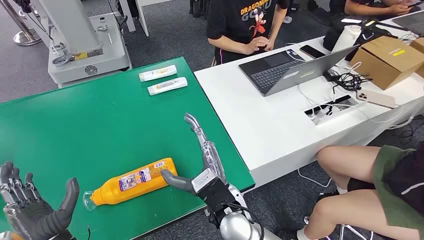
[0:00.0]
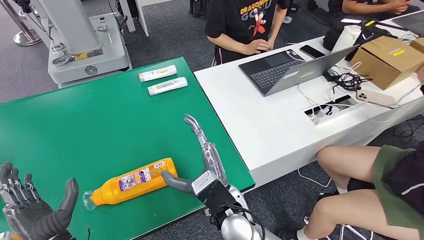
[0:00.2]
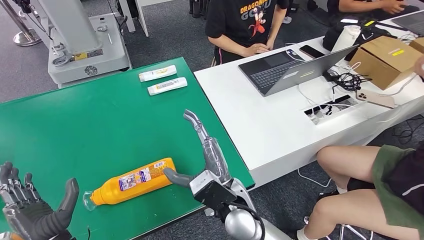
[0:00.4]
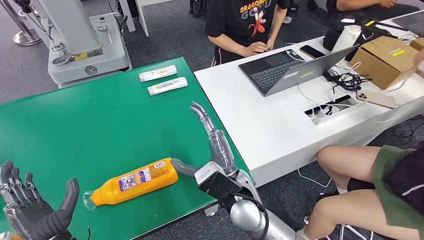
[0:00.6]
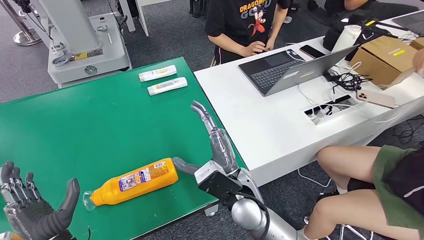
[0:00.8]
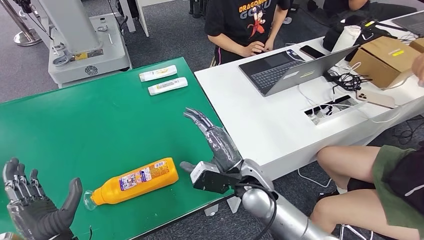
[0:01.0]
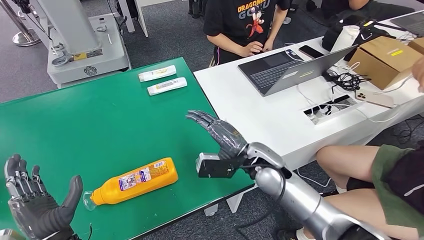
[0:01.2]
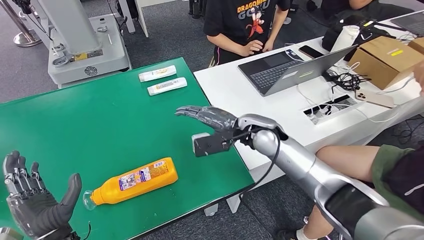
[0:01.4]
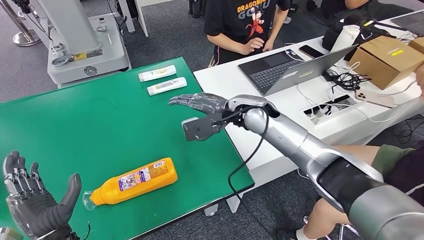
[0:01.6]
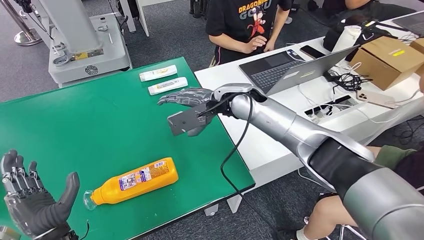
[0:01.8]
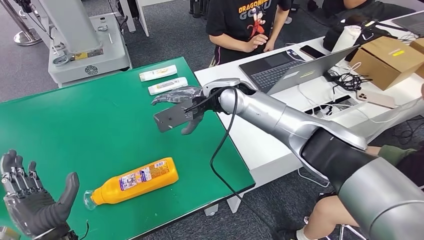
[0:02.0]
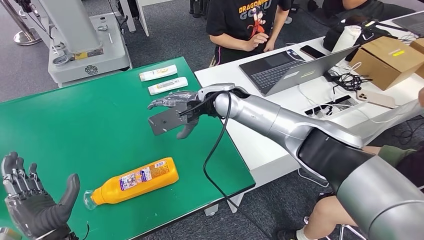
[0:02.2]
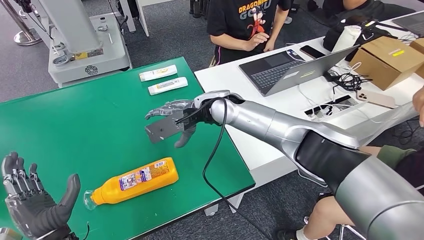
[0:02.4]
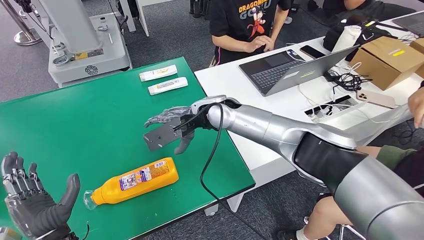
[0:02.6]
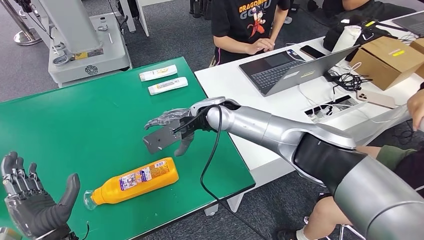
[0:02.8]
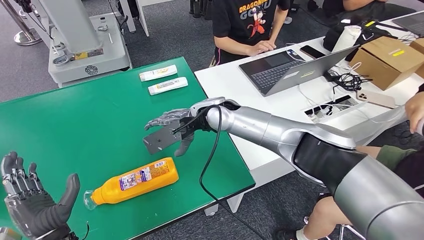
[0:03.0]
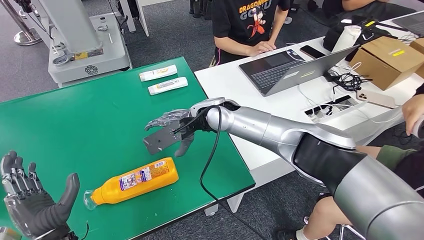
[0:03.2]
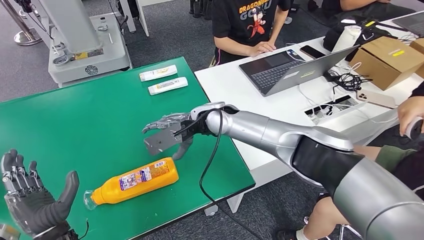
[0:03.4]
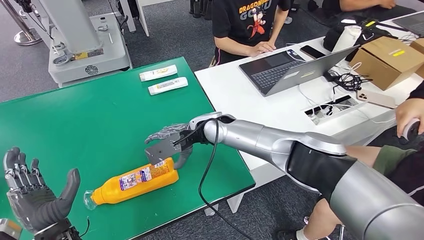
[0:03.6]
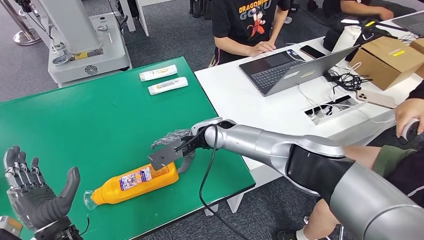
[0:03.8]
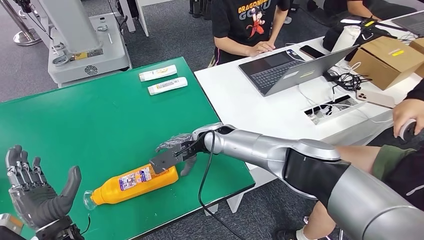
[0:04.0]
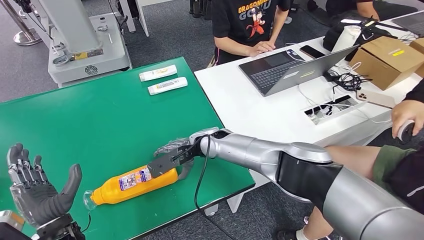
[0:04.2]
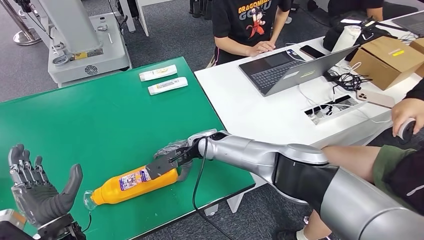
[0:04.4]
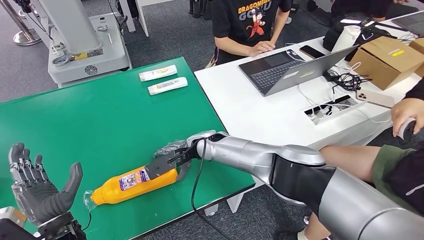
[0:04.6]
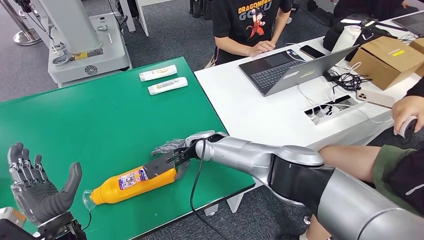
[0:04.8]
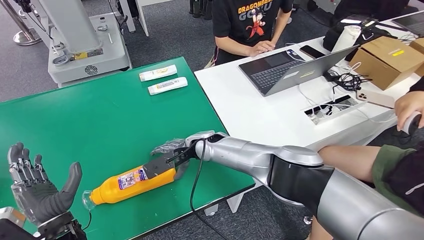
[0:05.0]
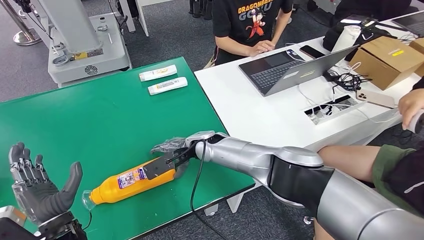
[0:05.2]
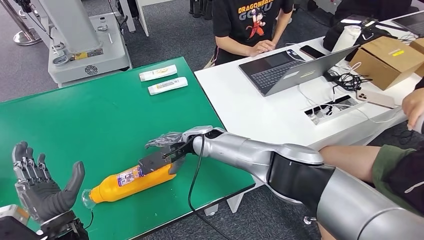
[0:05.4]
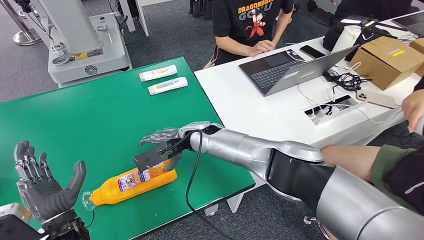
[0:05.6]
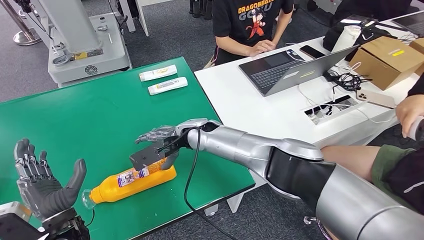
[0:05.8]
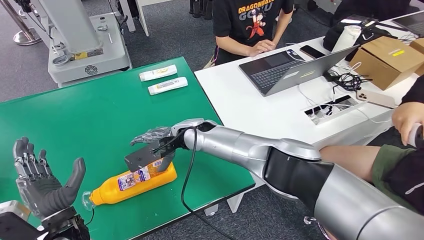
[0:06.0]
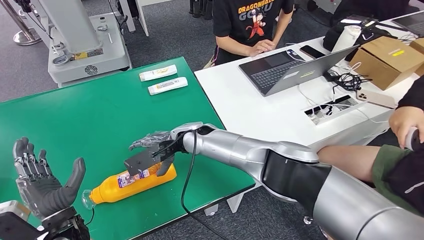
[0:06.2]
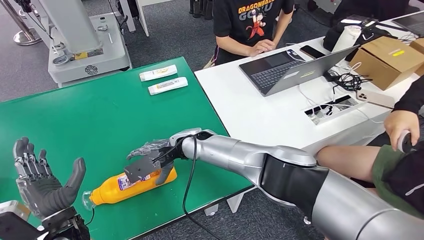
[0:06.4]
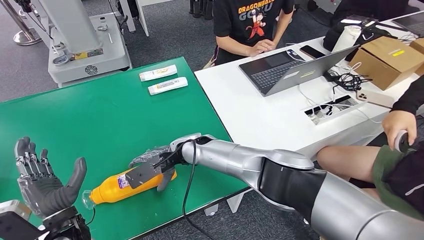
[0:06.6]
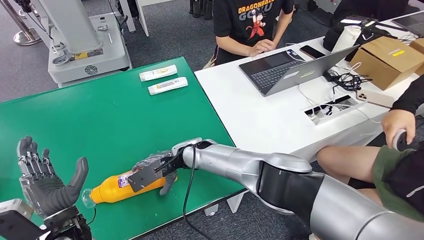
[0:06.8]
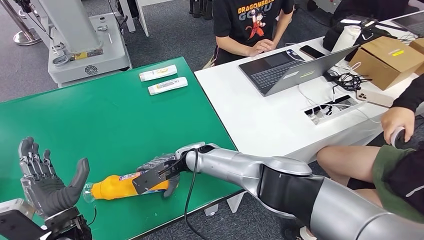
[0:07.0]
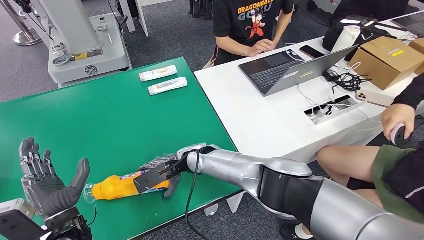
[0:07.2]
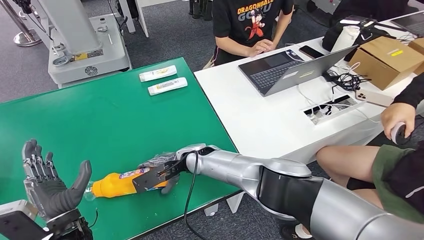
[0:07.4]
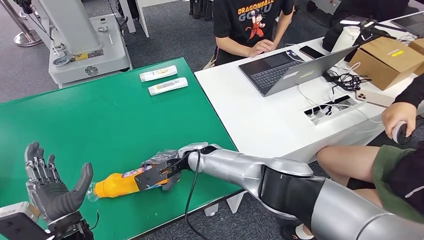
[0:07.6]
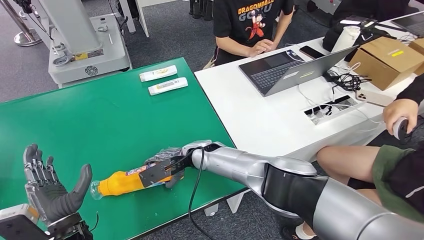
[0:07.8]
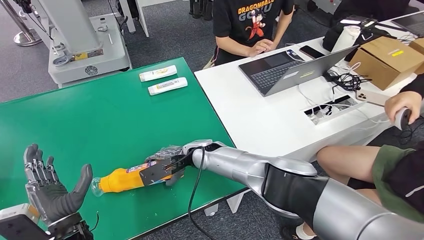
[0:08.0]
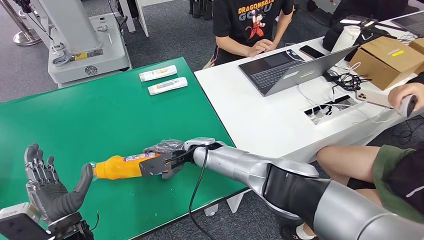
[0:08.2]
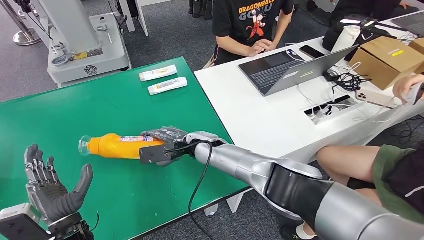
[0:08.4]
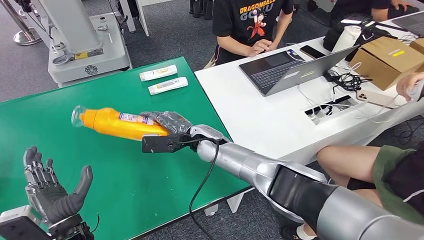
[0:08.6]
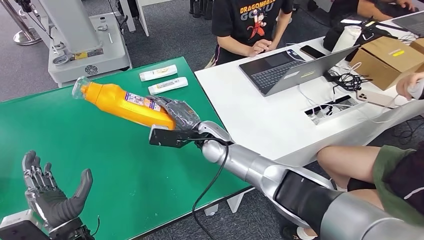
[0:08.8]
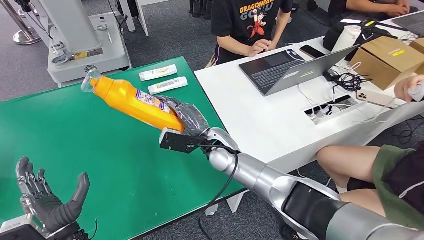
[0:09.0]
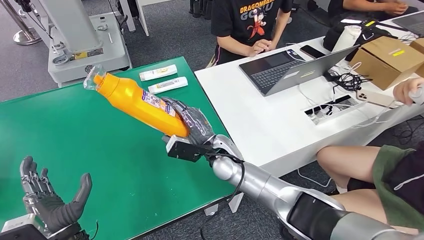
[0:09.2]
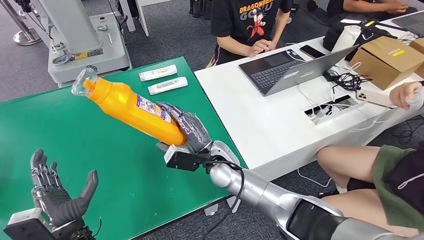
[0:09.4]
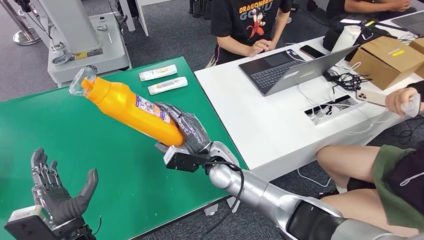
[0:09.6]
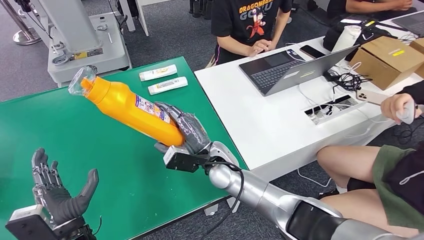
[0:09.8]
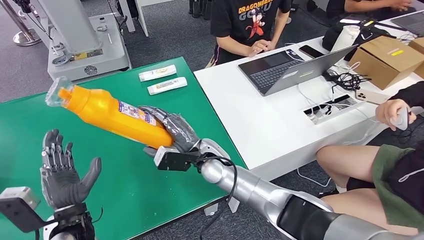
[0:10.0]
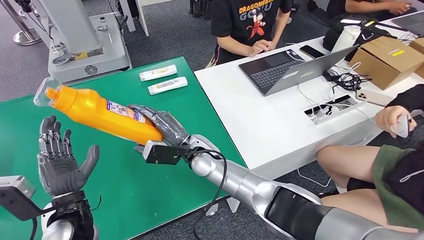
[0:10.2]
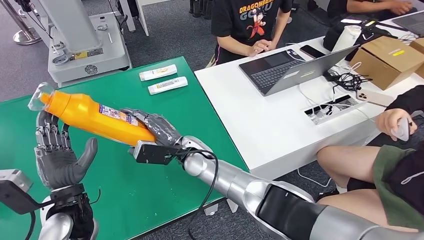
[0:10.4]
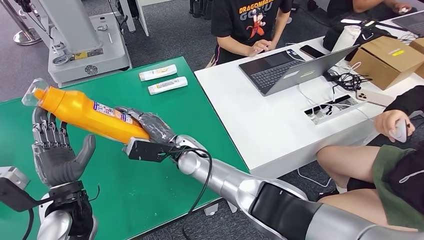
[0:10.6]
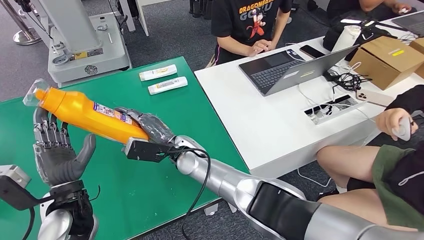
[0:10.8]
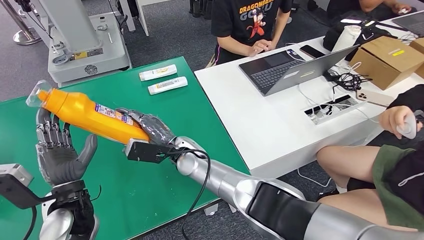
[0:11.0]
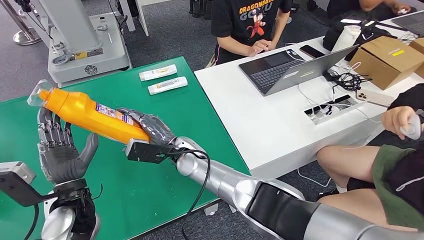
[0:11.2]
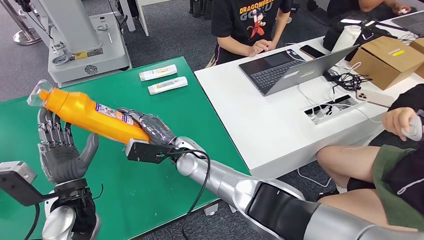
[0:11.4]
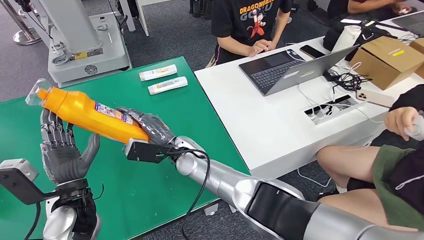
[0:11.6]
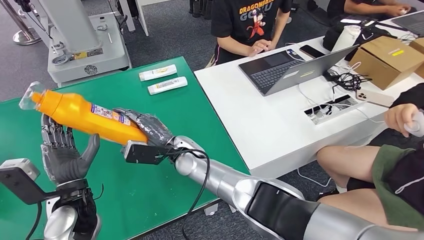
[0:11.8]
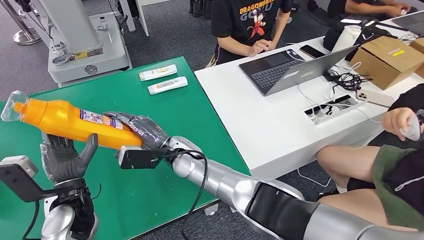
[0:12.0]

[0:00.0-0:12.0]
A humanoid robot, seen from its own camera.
Step, 0:00.0 to 0:09.2: Pick up the bottle from the table.
0:01.6 to 0:03.0: The right hand is displaced to the left by approximately 10 cm.
0:04.4 to 0:06.0: The right hand moves approximately 5 cm.
0:10.4 to 0:12.0: The hands stay close to where they were, moving slightly.

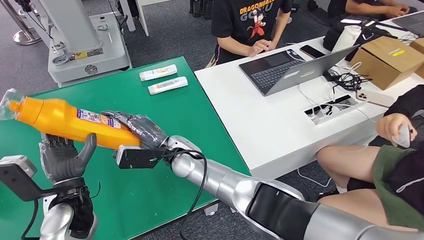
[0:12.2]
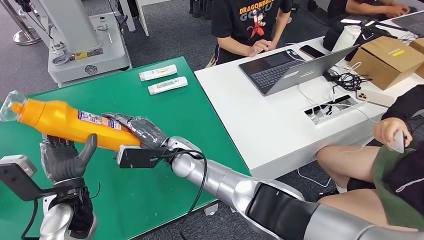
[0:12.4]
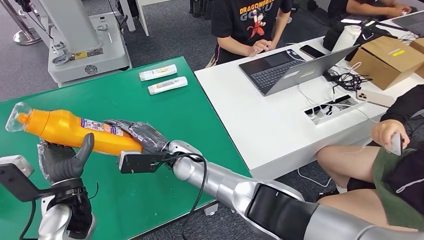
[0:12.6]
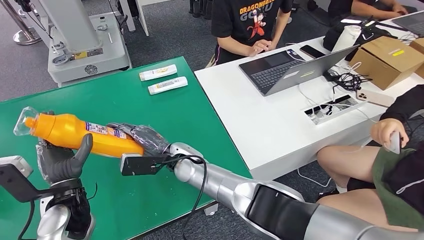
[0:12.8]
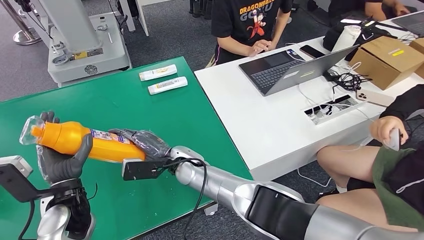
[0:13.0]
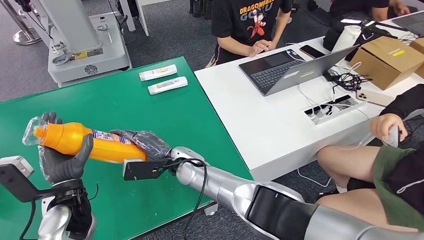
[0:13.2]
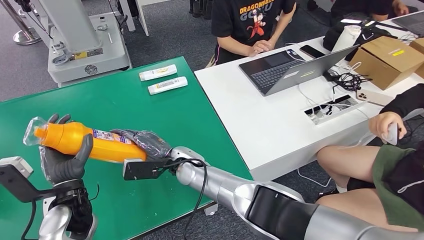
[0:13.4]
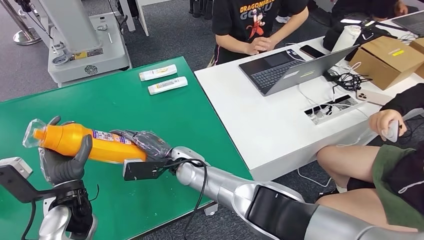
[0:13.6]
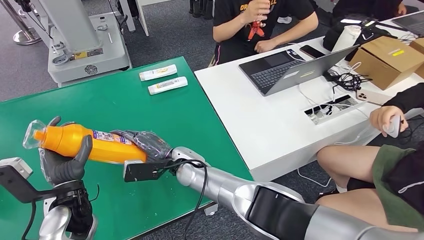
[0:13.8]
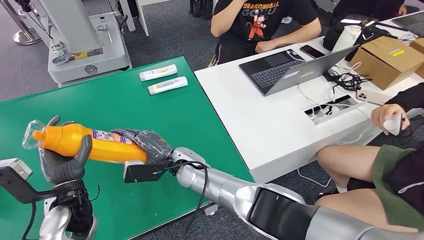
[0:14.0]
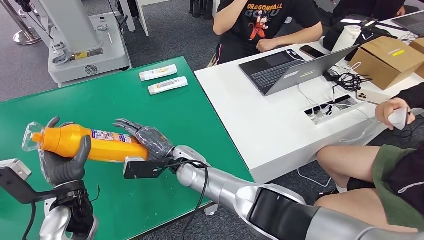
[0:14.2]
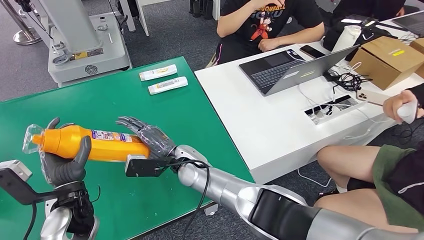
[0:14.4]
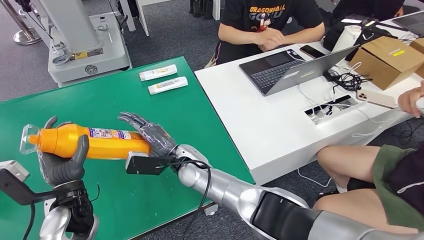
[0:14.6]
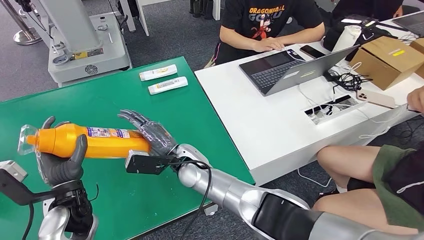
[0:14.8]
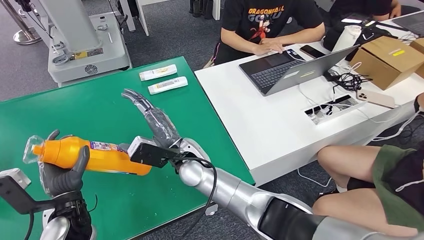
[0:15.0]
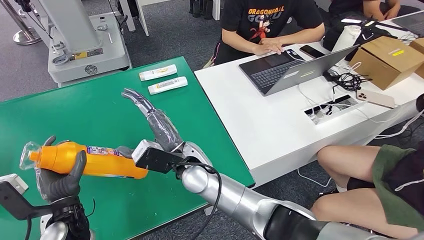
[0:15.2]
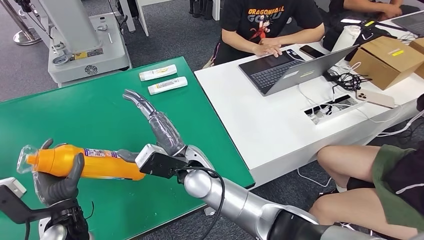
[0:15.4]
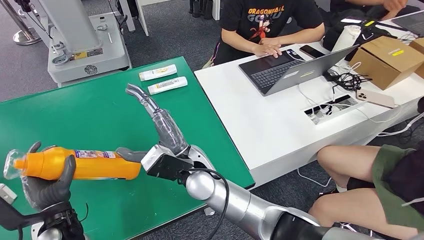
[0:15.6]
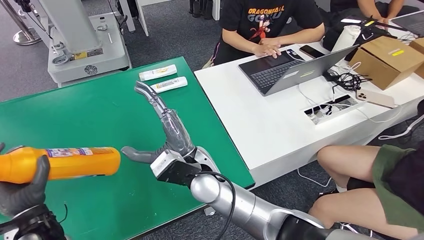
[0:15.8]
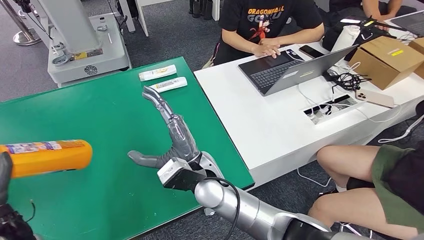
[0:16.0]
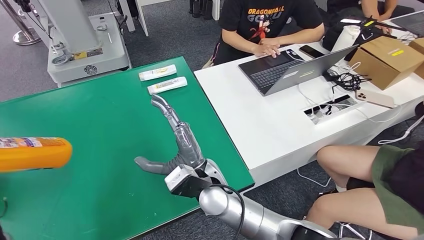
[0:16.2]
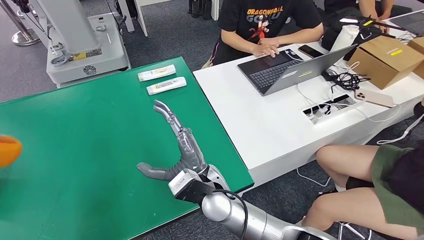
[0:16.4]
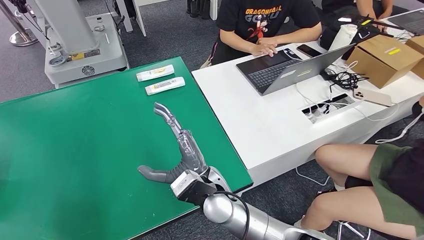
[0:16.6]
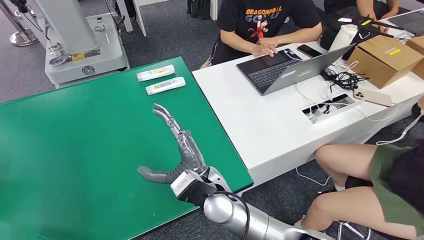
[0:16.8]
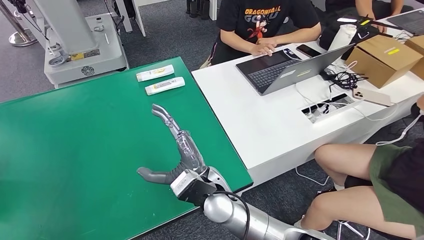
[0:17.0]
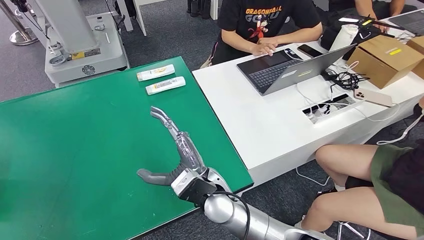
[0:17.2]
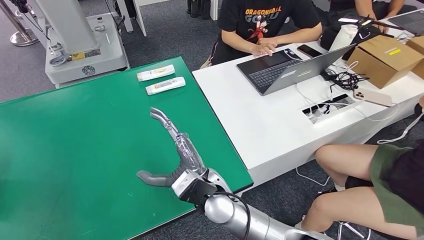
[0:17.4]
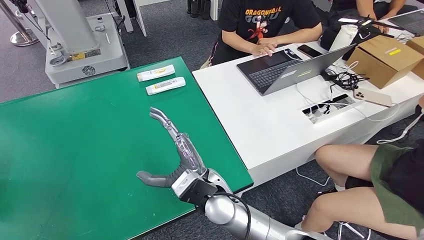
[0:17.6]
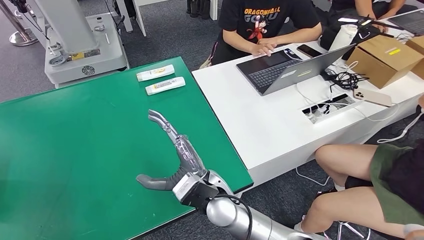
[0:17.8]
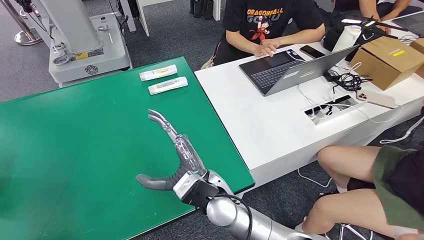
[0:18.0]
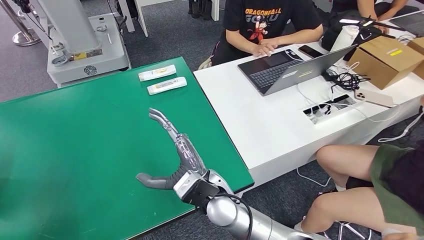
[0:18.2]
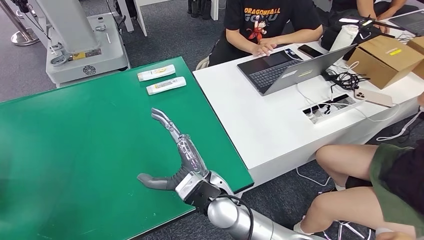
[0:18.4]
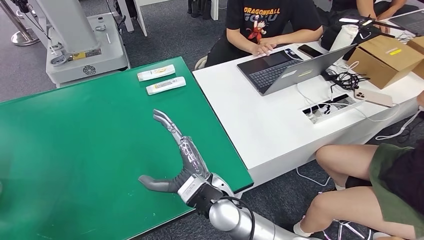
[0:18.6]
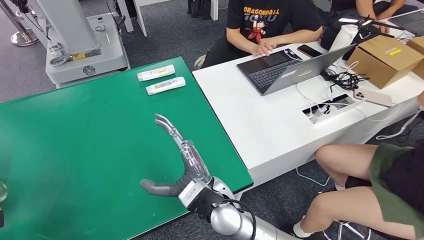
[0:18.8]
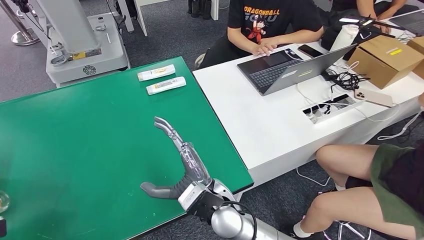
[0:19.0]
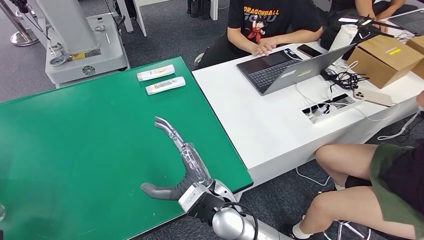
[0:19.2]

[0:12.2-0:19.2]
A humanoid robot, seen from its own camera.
0:12.2 to 0:13.6: There are only small adjustments of the hands.
0:13.6 to 0:15.0: The right hand ends up approximately 5 cm from where it was.
0:16.4 to 0:17.8: The left hand shifts some 20 cm to the left.
0:17.8 to 0:19.2: The left hand is displaced downward and forward by about 15 cm.
